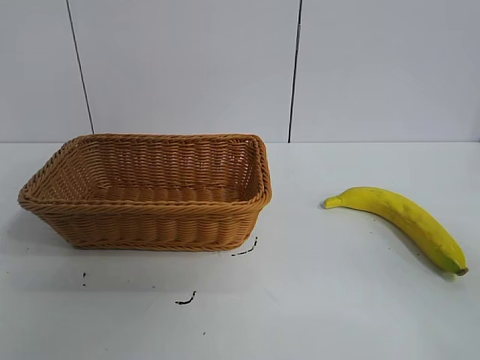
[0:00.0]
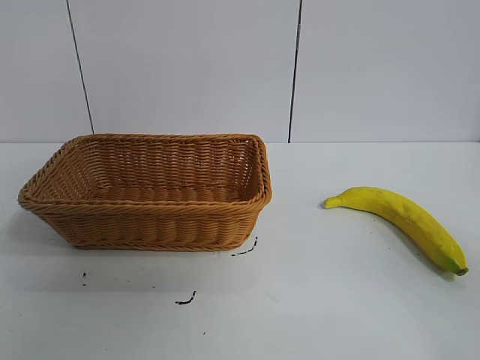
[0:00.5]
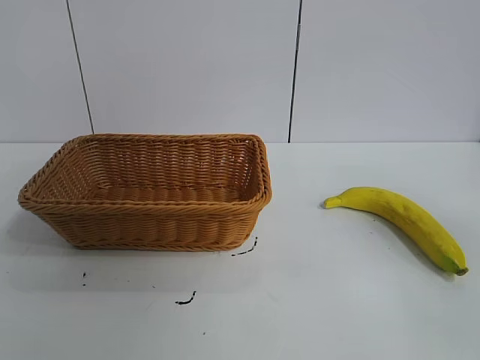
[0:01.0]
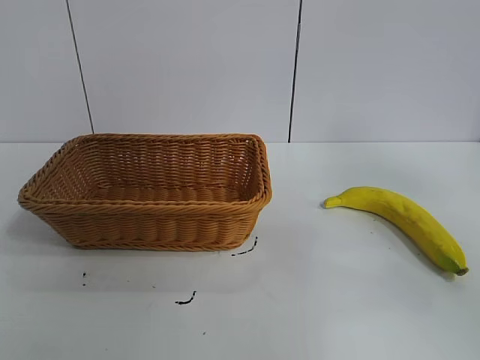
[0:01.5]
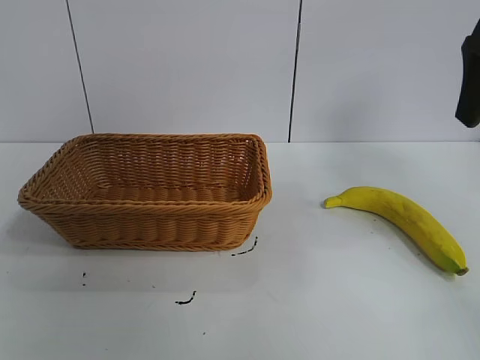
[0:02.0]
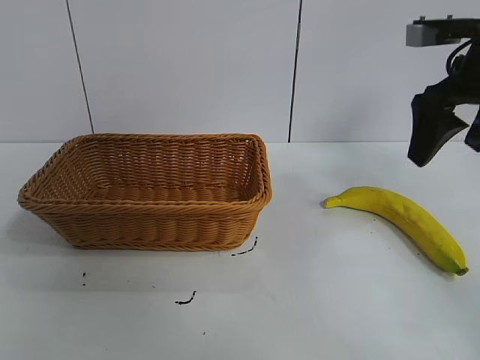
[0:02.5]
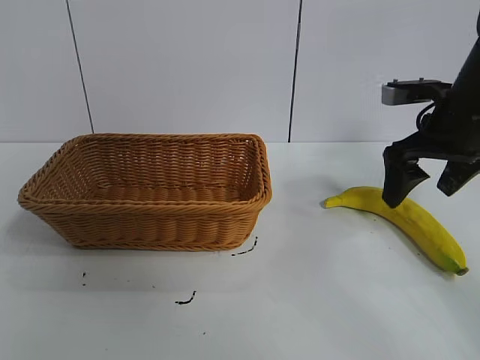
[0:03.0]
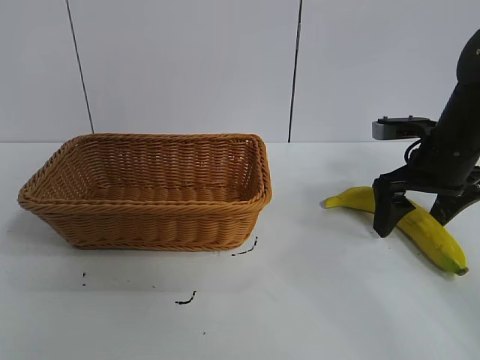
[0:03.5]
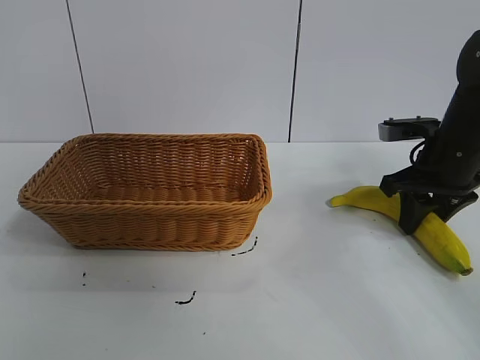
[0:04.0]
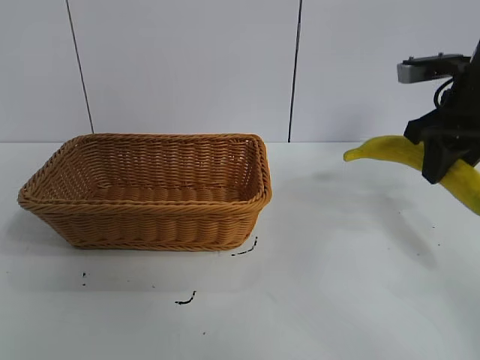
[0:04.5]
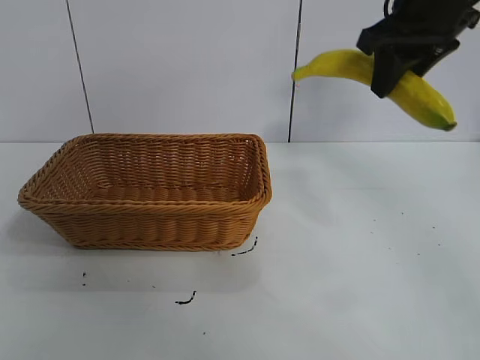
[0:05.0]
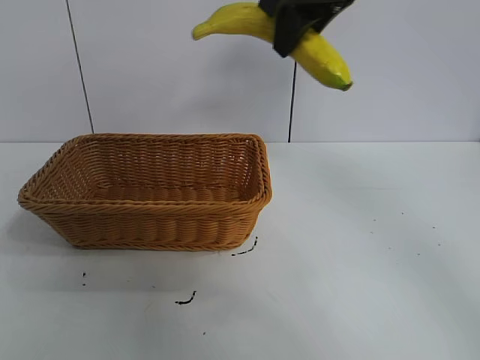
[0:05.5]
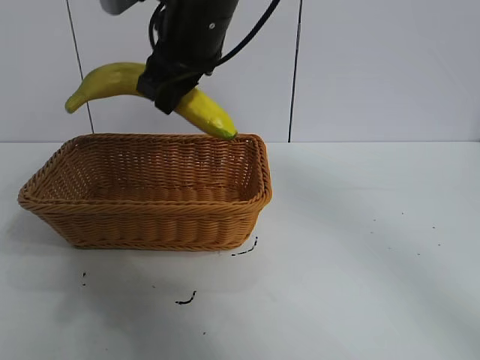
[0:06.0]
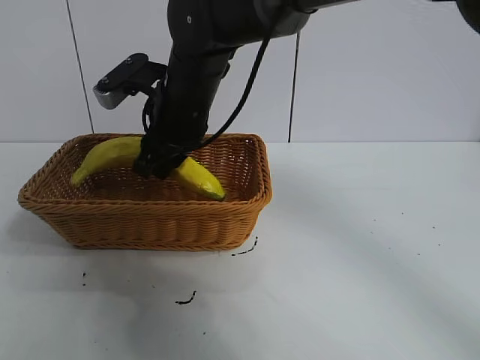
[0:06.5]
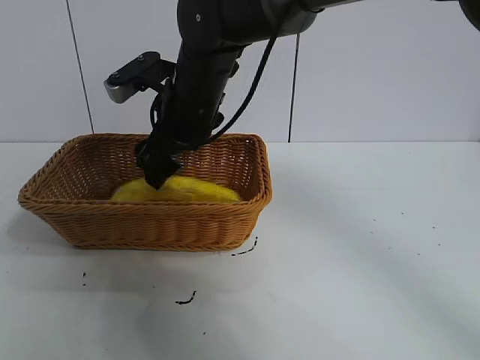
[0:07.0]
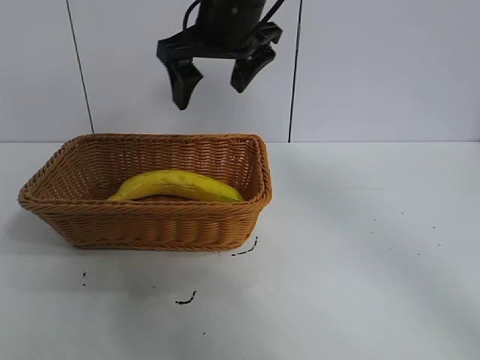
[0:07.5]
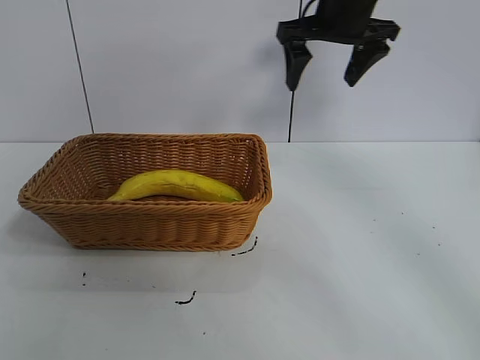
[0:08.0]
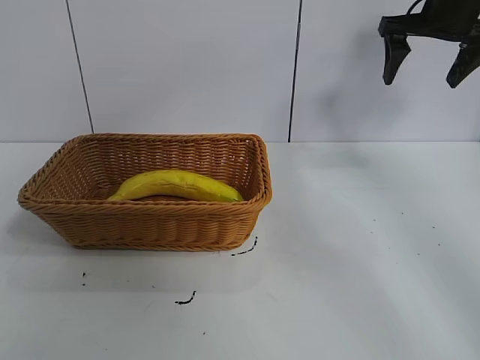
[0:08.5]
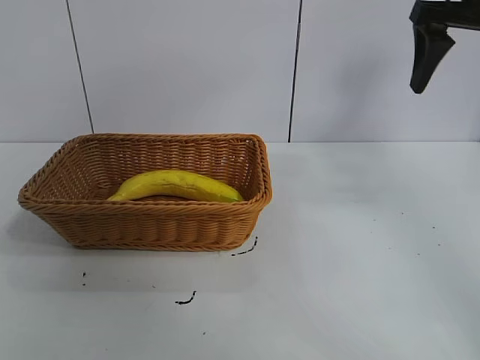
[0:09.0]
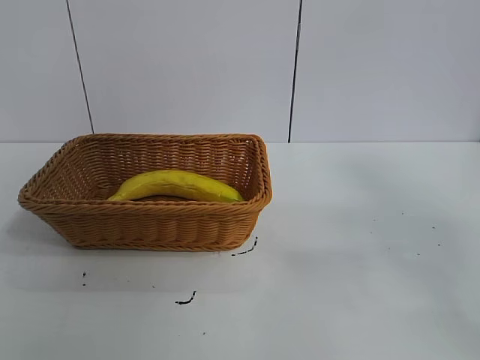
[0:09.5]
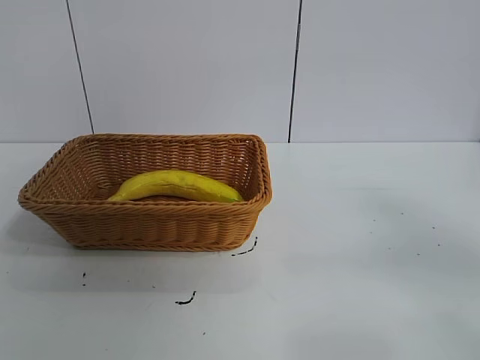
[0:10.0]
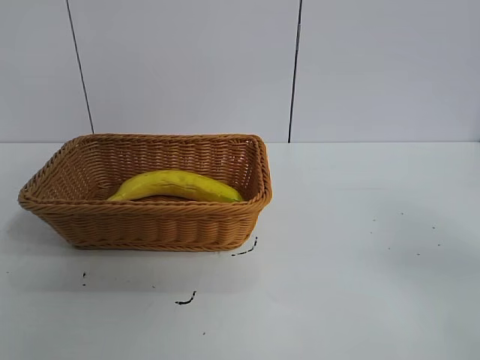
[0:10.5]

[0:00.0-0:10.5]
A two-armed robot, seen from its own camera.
Task of the whole recording: pick up the banana and put it into the basket.
Step, 0:01.0 to 0:03.5: Grasp the banana with right gripper.
Step, 0:04.0 to 0:07.0: Place the banana in the basket with right gripper.
